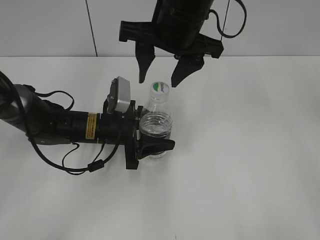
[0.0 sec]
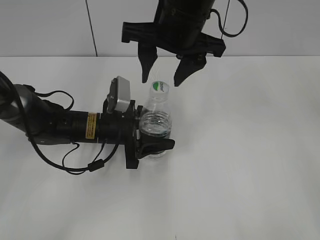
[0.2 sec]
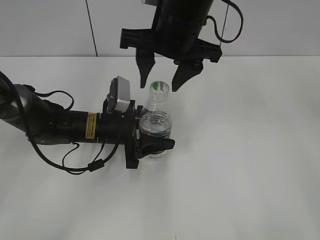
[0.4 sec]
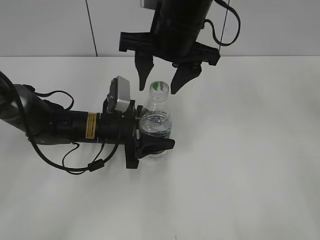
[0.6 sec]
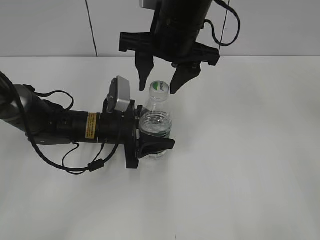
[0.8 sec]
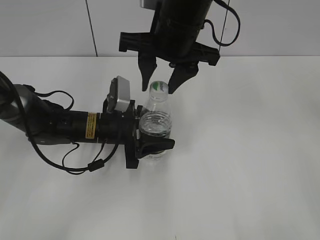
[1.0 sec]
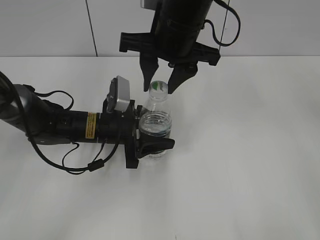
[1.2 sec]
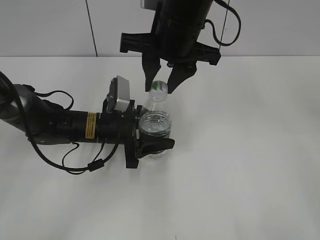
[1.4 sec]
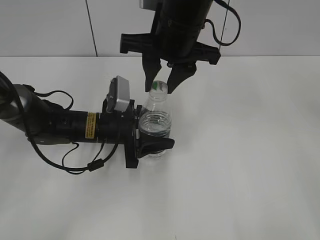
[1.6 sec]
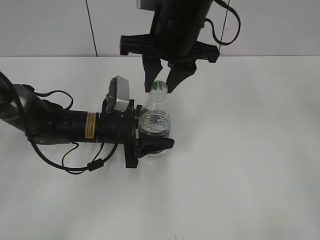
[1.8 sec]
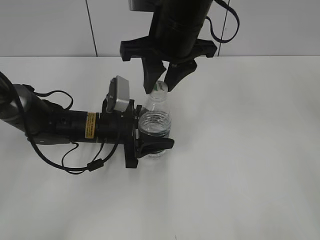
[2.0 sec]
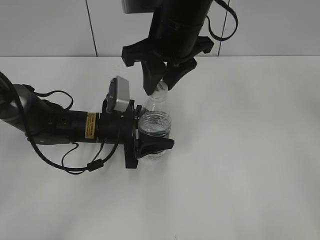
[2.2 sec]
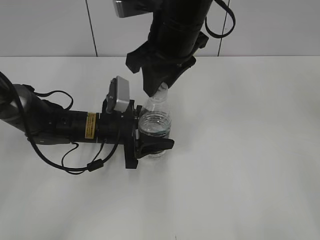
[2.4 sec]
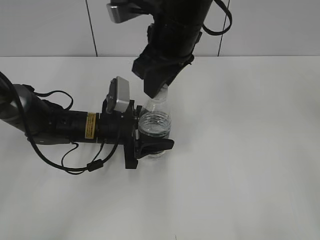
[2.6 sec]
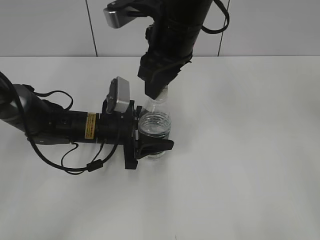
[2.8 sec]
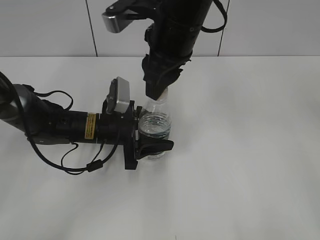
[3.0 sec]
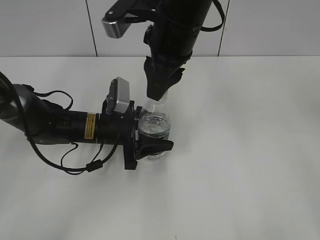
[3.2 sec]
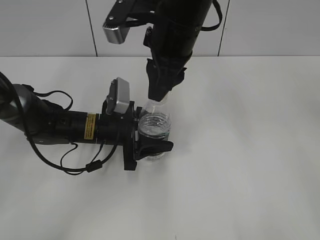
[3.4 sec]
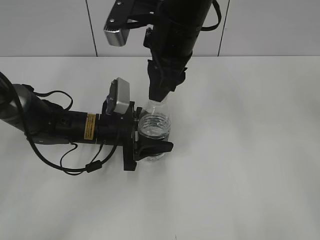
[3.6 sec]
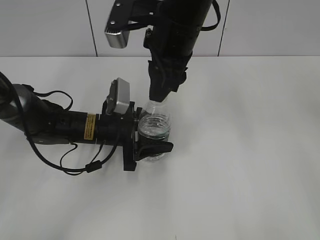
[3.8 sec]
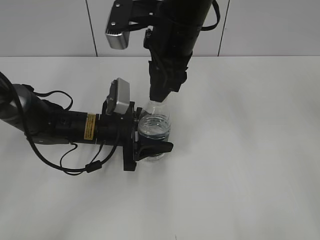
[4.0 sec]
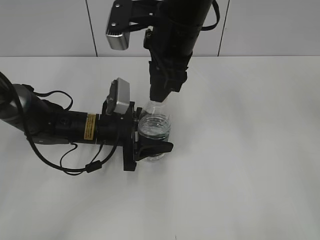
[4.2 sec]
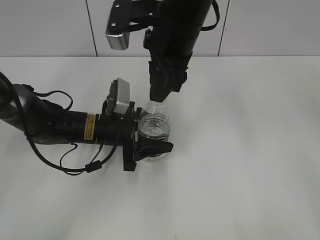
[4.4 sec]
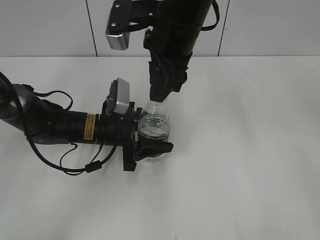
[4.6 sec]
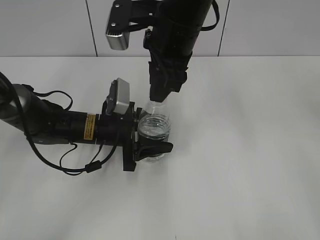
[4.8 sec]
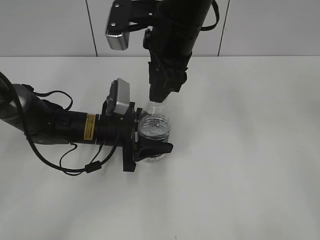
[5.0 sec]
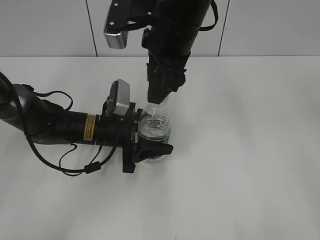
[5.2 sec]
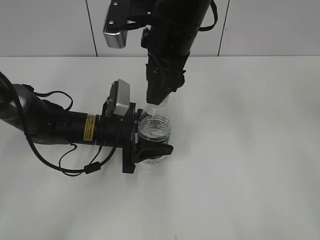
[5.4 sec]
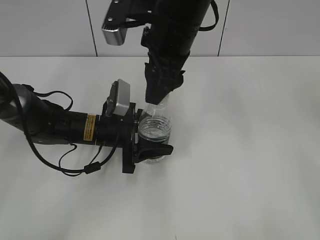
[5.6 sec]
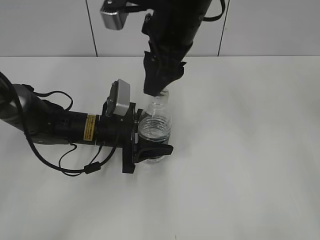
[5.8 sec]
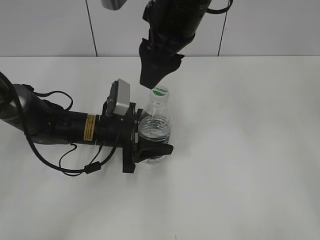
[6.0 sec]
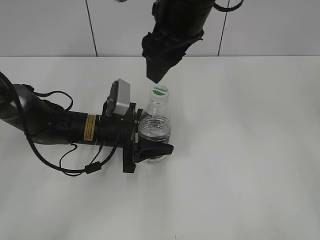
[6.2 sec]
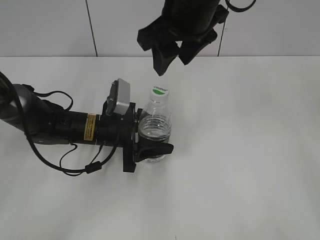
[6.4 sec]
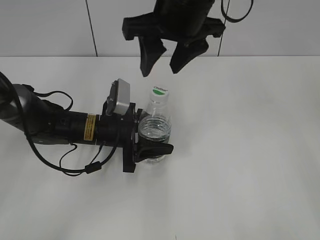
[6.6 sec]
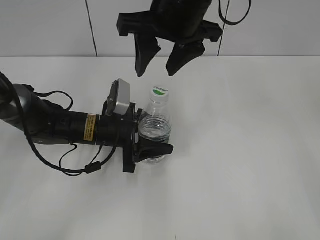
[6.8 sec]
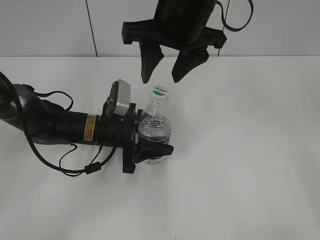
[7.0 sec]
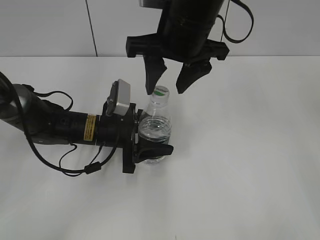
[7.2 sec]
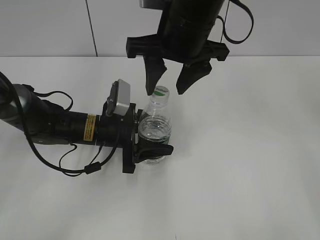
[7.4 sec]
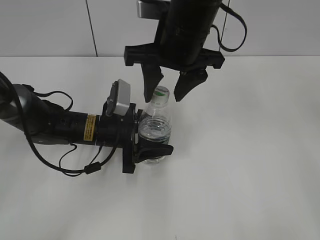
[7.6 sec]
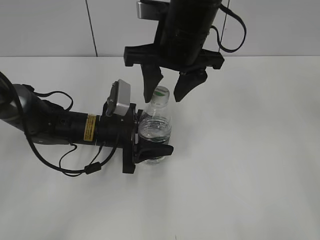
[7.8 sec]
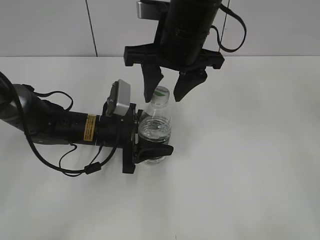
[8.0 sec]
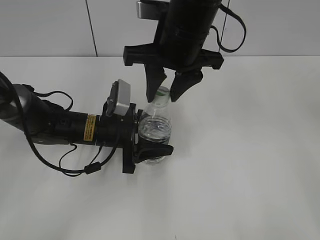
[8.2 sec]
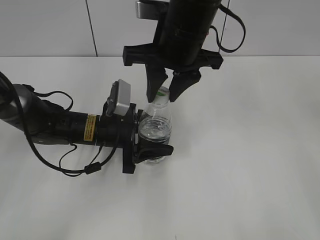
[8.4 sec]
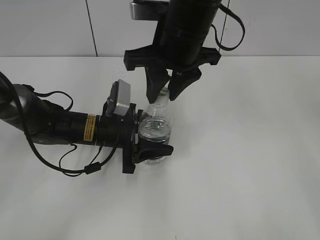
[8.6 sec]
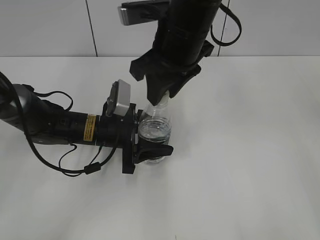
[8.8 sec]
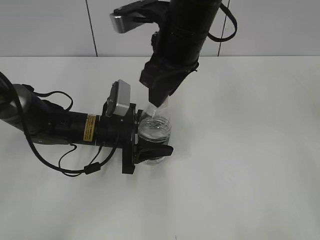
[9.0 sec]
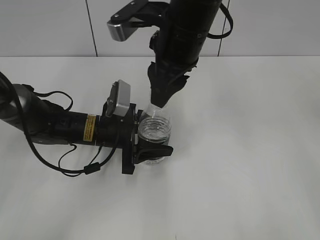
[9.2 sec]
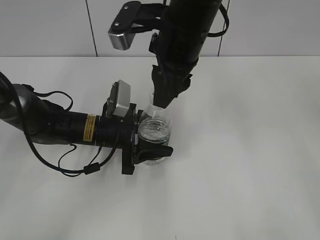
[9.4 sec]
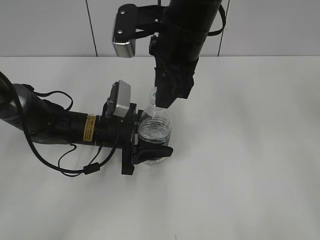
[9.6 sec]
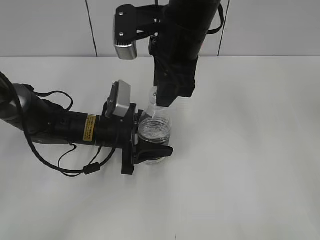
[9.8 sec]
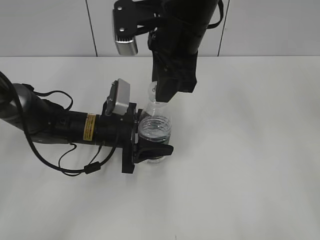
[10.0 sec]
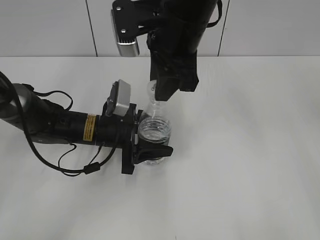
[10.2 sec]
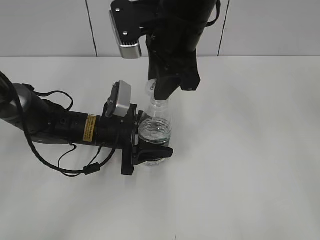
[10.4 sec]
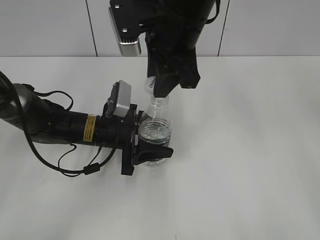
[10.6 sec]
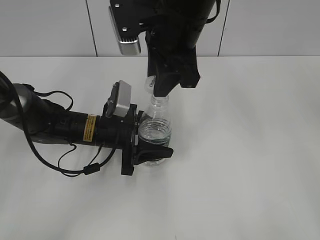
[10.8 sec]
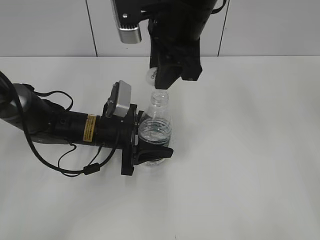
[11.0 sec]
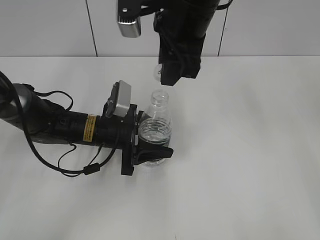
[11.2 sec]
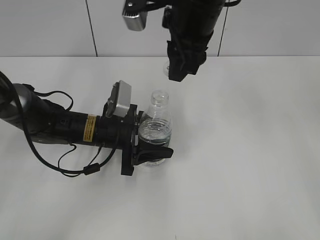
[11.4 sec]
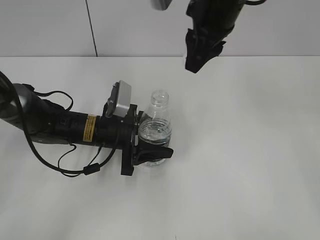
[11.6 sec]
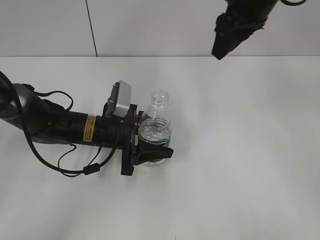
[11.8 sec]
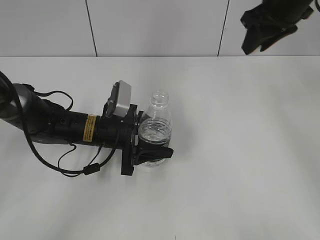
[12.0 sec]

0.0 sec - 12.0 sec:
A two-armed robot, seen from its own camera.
Step, 0.0 sec - 11.0 sec: Unscrew the bottle cap with the right gripper while holding the bottle with the left gripper.
0.0 sec - 1.6 sec: The right gripper closes.
4.4 sec - 6.0 sec: The right gripper opens up.
7.6 sec - 9.0 sec: The right gripper closes its fingers.
10.4 sec - 12.0 sec: The right gripper heads to the right and forward, covering about 20 cm.

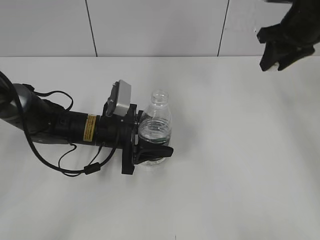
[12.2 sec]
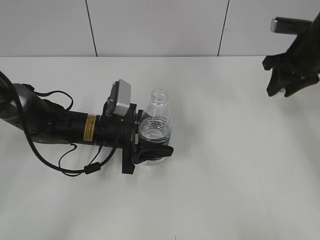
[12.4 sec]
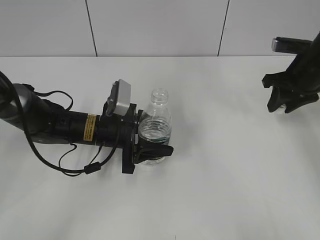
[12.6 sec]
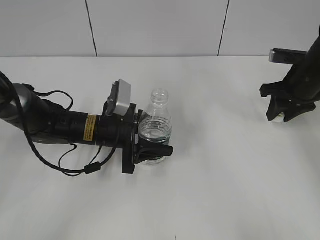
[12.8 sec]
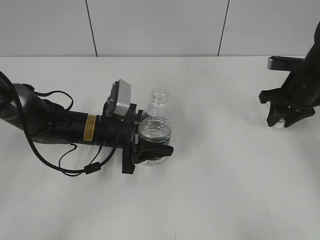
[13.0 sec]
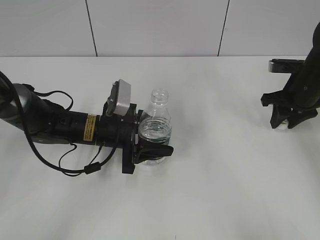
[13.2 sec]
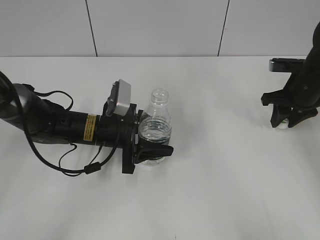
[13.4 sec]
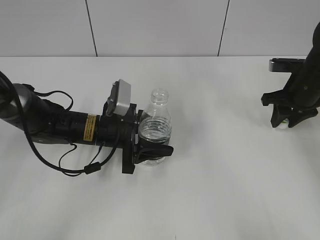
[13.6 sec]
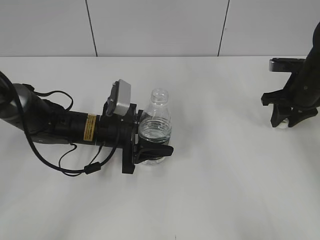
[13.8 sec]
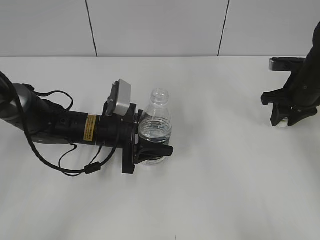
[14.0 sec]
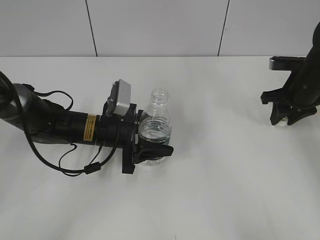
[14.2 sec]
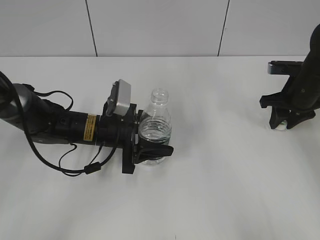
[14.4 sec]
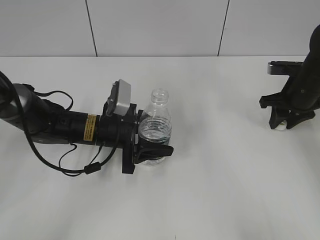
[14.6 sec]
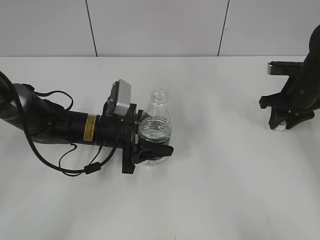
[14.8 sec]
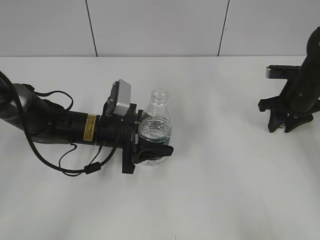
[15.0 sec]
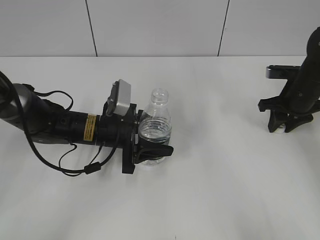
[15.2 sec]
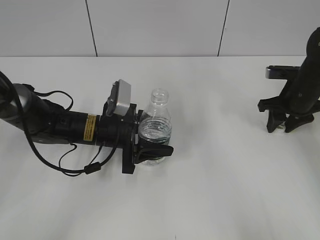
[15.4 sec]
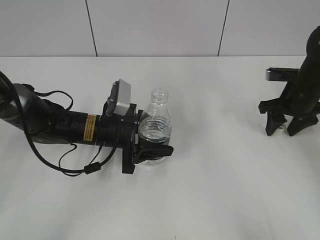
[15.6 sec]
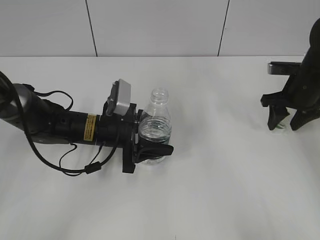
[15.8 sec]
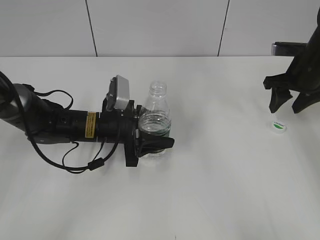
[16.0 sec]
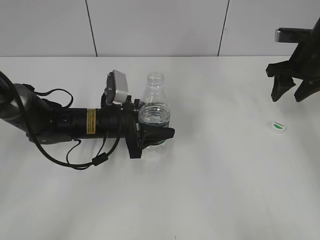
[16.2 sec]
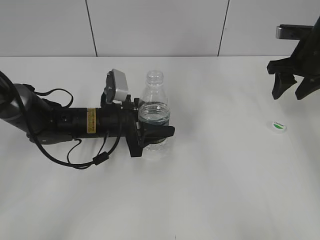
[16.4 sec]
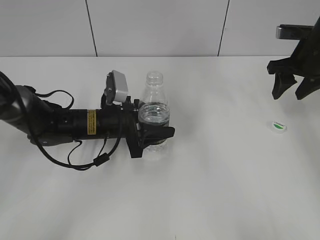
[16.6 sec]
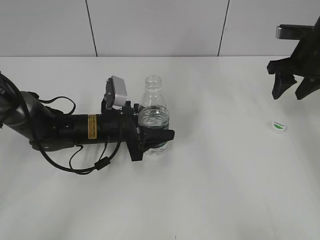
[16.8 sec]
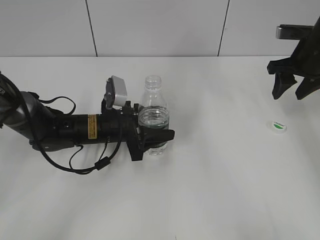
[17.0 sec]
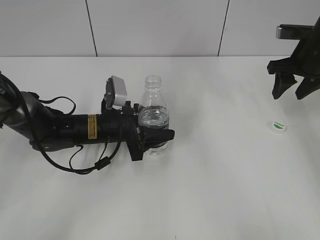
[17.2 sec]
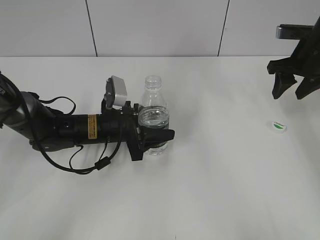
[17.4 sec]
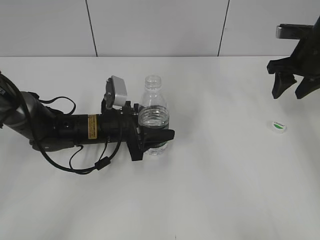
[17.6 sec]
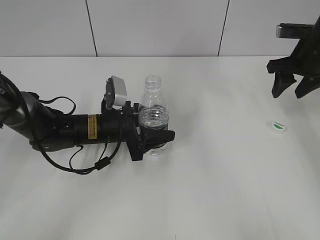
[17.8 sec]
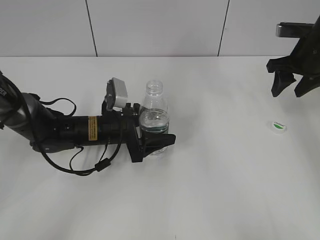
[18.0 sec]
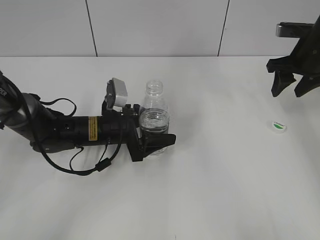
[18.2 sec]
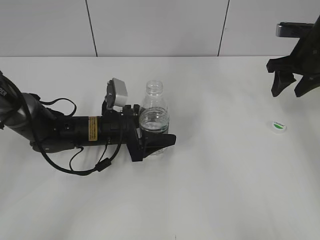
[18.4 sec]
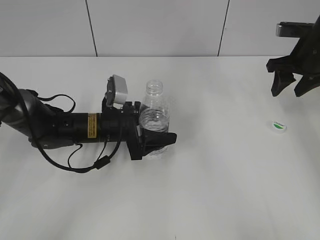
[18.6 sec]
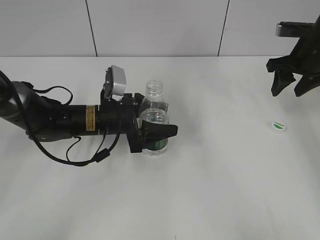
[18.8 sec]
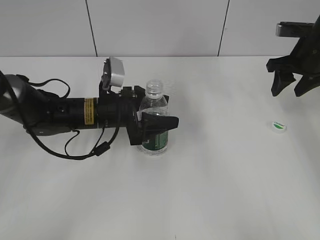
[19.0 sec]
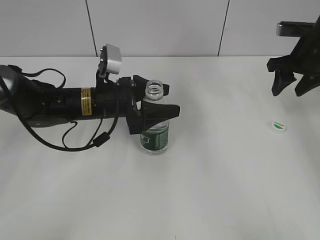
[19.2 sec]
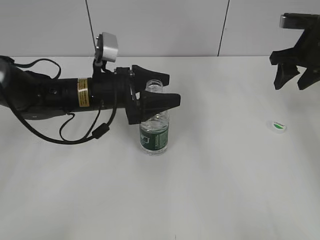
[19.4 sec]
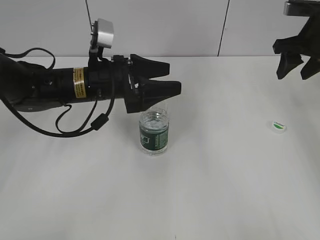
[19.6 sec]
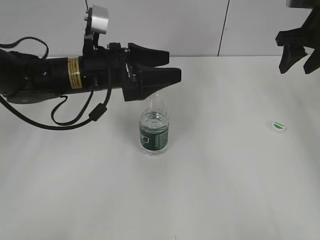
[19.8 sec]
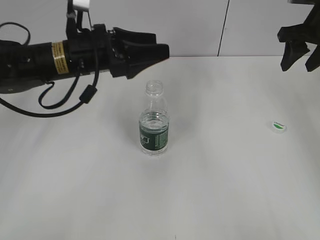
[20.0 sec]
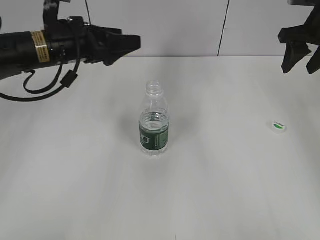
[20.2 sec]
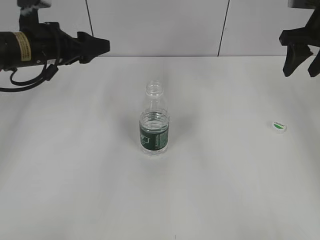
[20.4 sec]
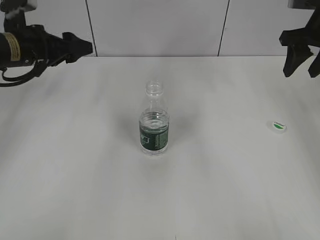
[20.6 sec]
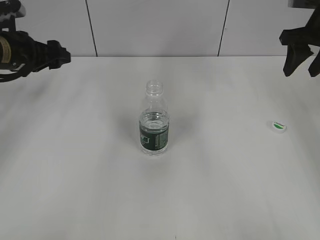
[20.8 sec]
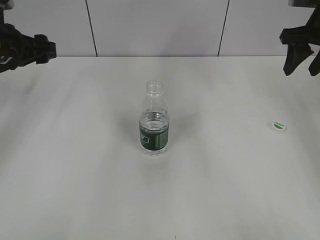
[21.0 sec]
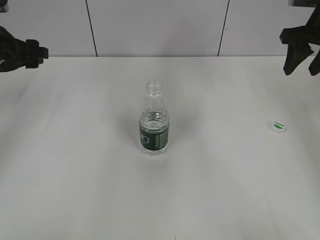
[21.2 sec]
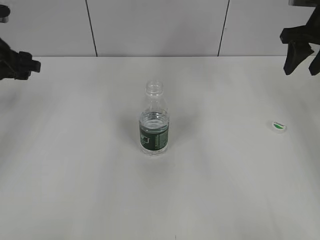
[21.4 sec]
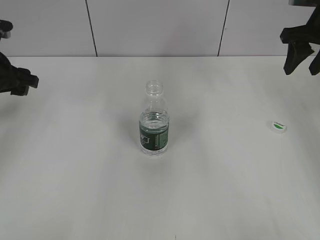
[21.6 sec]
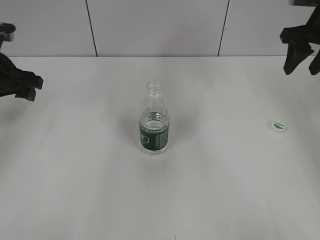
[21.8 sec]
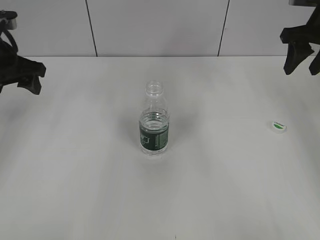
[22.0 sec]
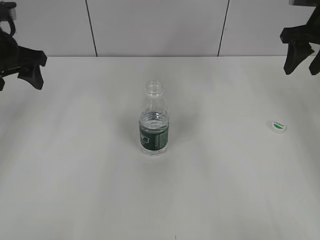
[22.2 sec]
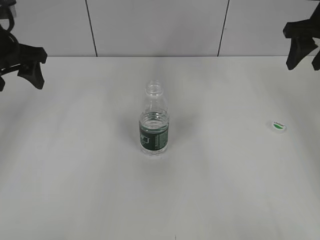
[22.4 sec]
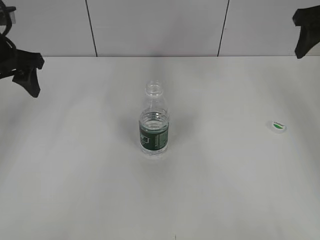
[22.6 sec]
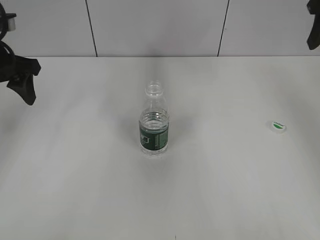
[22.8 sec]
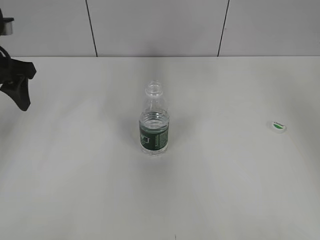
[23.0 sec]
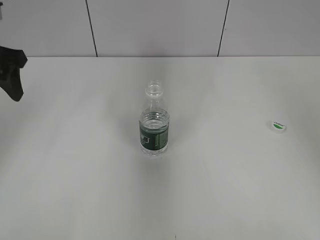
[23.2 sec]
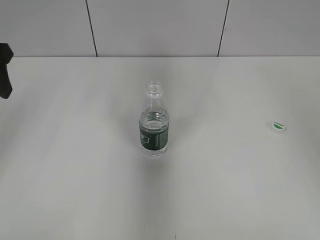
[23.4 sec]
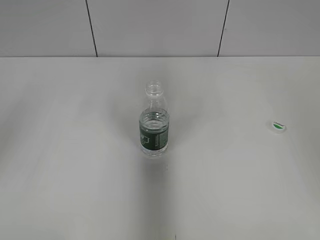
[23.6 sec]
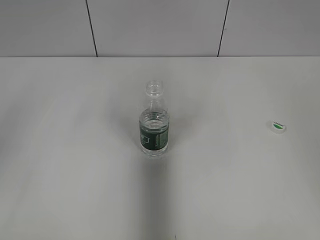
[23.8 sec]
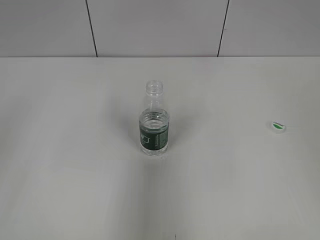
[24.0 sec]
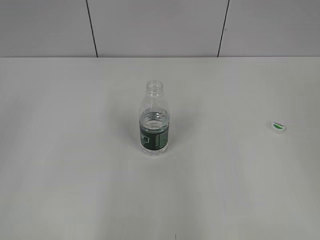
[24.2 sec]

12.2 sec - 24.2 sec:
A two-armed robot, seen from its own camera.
Step, 12.2 sec - 15.8 sec: Place the bottle cap on the table with the right gripper.
Step, 16.0 sec - 18.8 sec: Place the bottle on the table with the left gripper.
12.2 sec - 13.8 sec: The right gripper goes roughly 10 cm downward.
13.8 sec - 15.2 sec: There are only small adjustments of the grippers.
15.2 sec - 16.6 sec: The right gripper moves upward, some 10 cm, and opens.
16.6 sec - 18.2 sec: The left gripper opens up.
18.2 sec - 19.8 sec: The left gripper shifts some 15 cm upward, while the right gripper travels upward by approximately 5 cm.
19.8 sec - 21.2 sec: The left gripper heads to the left, covering some 20 cm.
21.2 sec - 22.6 sec: The left gripper shifts by about 5 cm.
22.6 sec - 24.2 sec: Both grippers travel together backward, approximately 30 cm.
